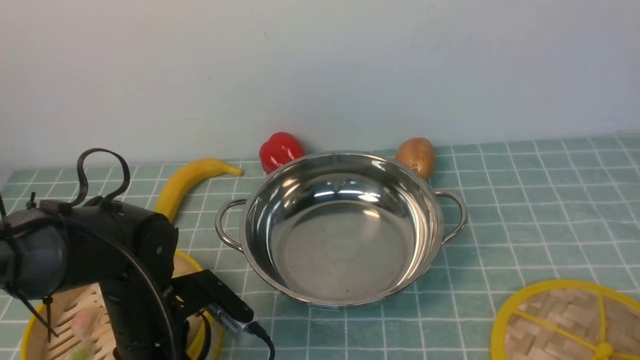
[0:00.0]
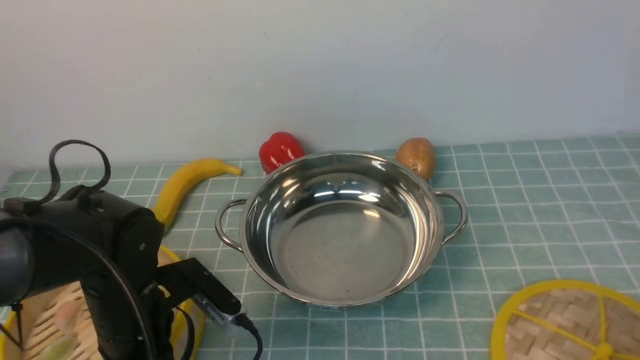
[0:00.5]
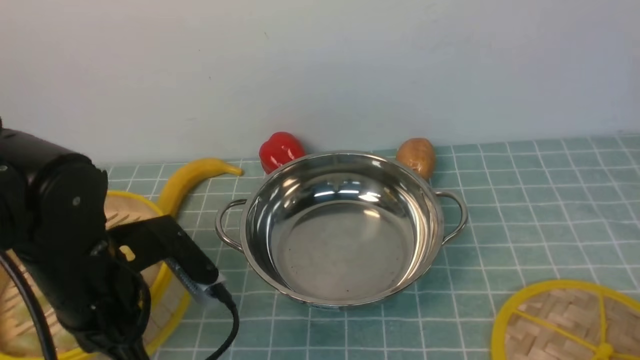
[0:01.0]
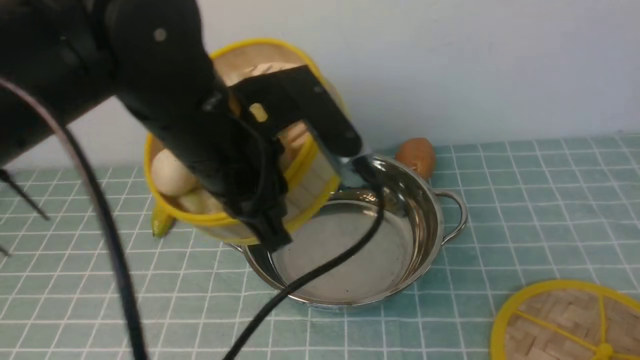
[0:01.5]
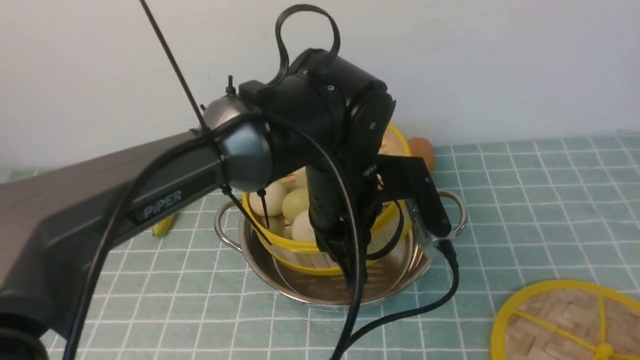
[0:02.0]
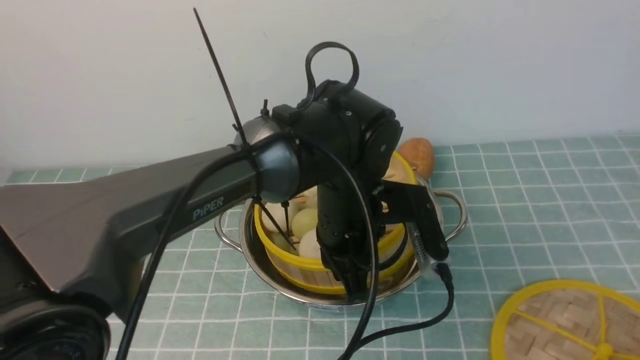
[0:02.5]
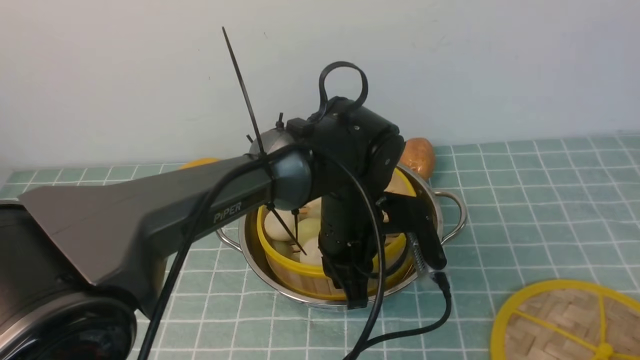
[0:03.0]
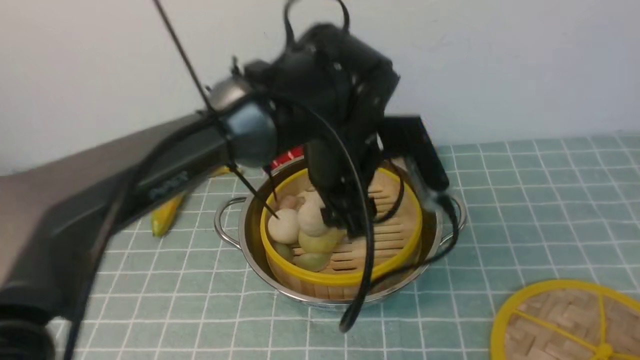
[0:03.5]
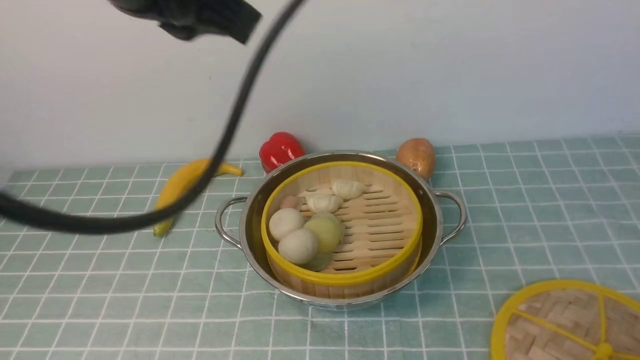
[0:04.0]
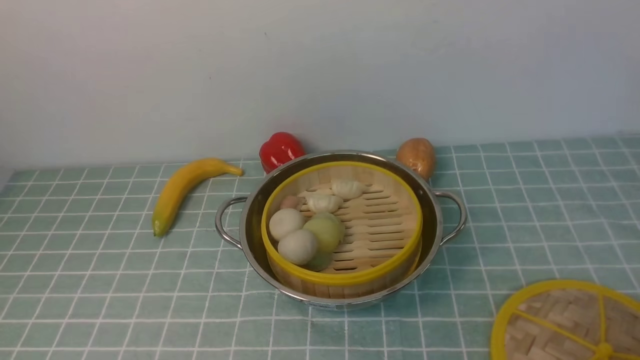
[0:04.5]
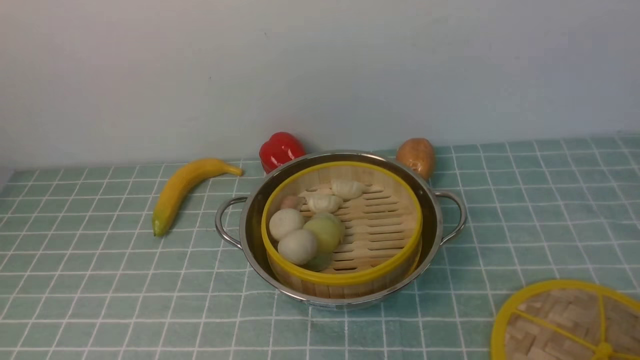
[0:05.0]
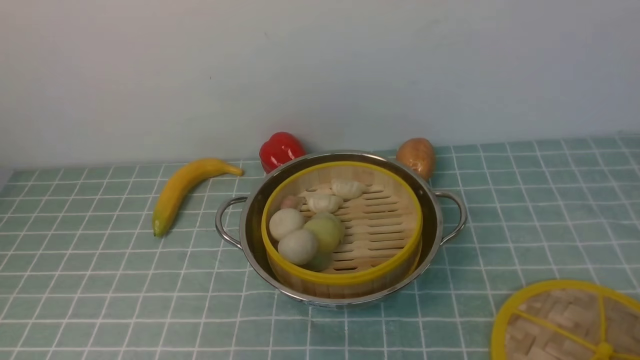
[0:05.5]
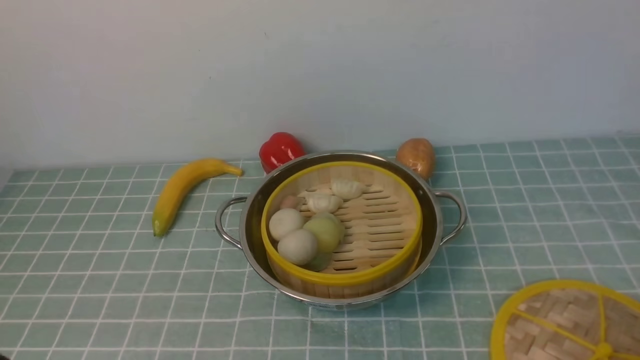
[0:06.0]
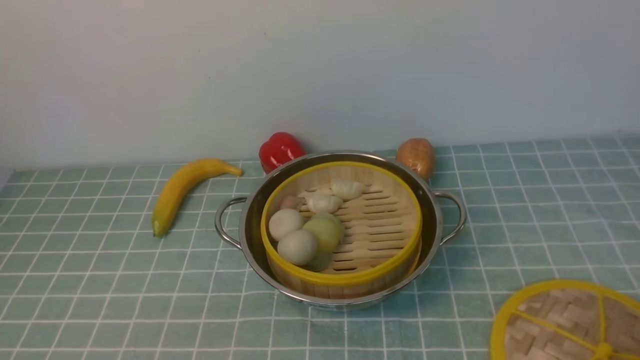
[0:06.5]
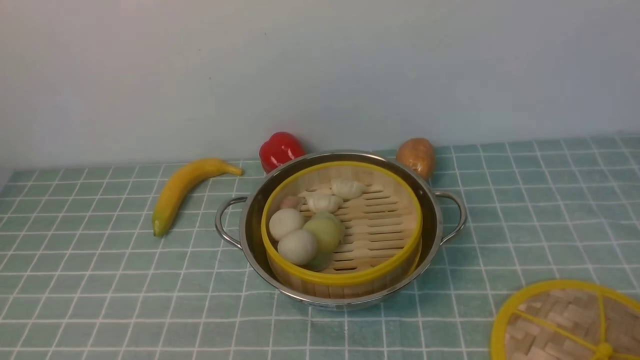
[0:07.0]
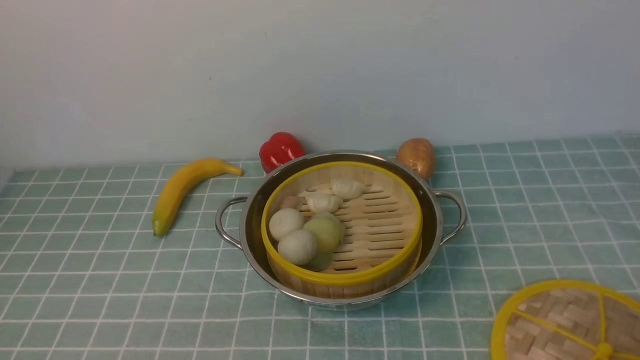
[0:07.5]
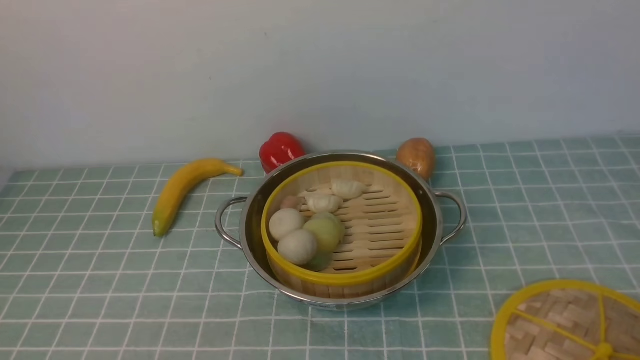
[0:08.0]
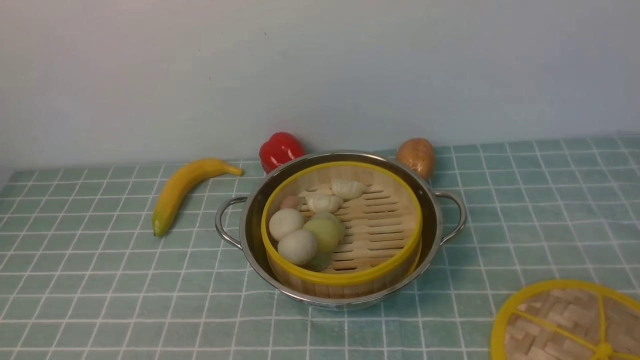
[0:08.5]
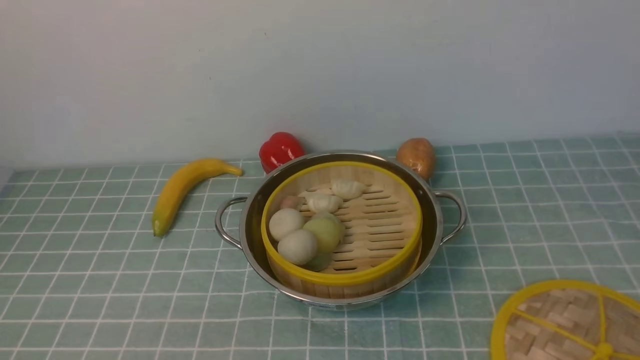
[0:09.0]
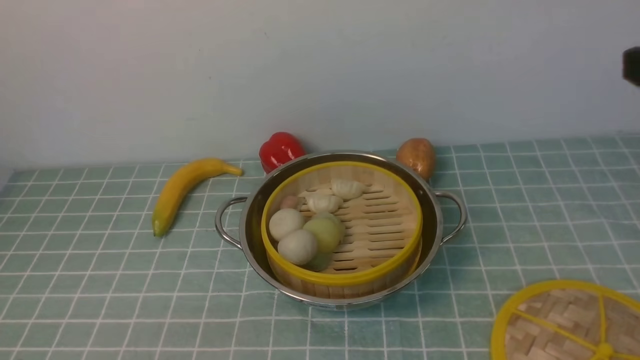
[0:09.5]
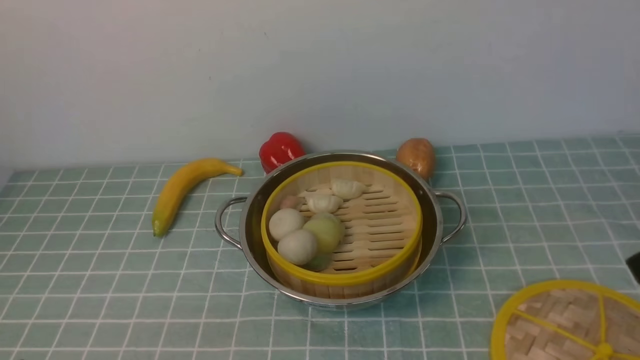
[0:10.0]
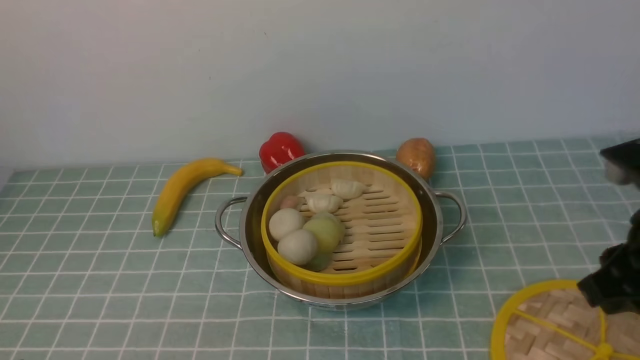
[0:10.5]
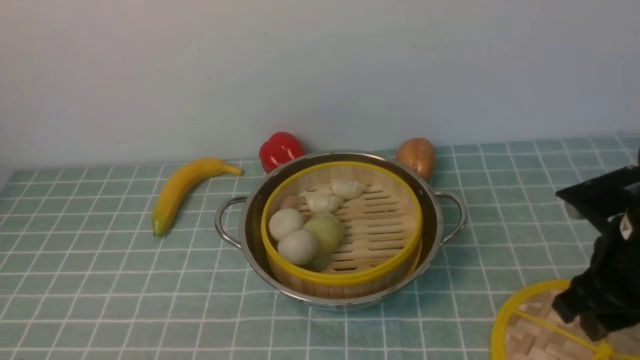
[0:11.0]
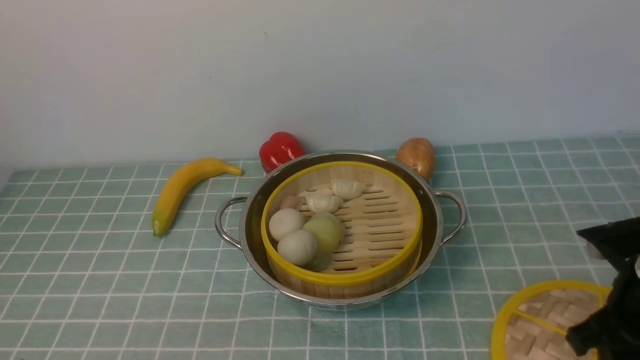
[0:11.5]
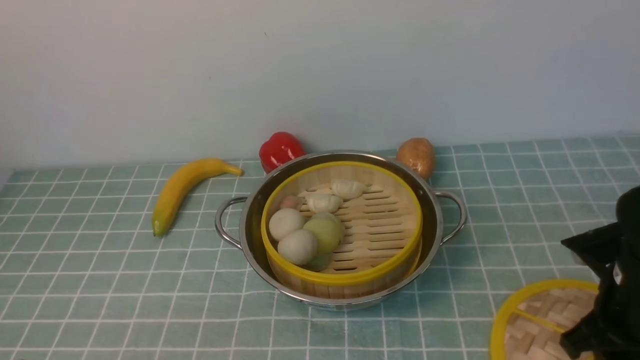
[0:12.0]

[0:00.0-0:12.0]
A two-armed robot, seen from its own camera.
Task of the whole recording: place the steamer in the pot on the blue tablecloth, and put the lid on the steamer.
Step, 0:01.5 to 0:03.5: use the left arm to put the steamer into the iron steamer pot in the middle.
0:00.0 to 0:02.0: The left gripper heads to the right and upward, covering approximately 20 cm, and closes.
0:02.0 to 0:04.0: The left gripper heads upward and to the left, covering about 25 cm, and opens, then closes again.
0:04.0 to 0:06.0: The left gripper moves downward, backward and to the left, approximately 35 cm.
0:10.0 to 0:12.0: The right gripper goes some 20 cm downward and forward.

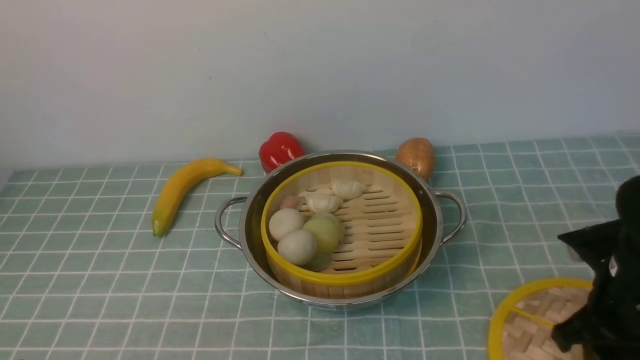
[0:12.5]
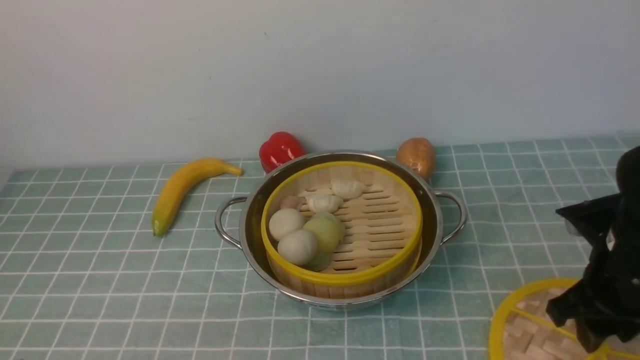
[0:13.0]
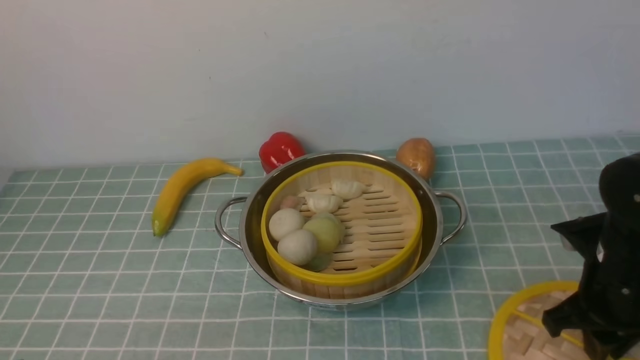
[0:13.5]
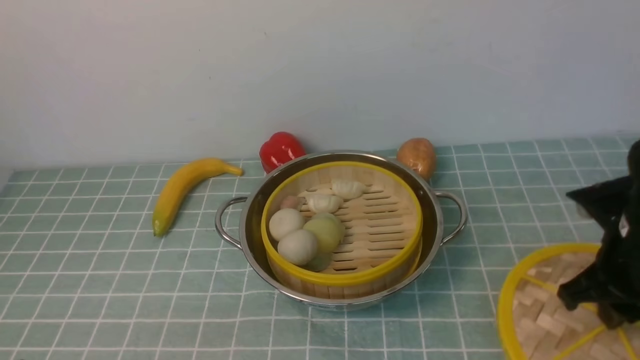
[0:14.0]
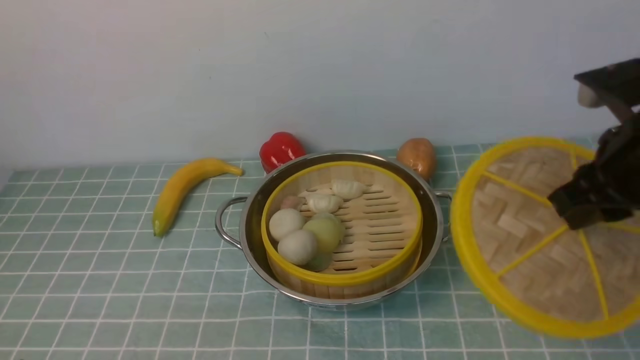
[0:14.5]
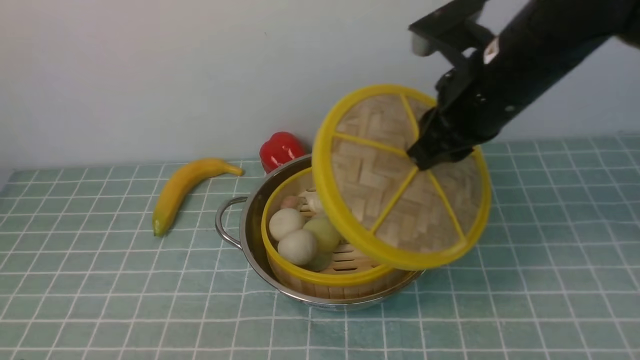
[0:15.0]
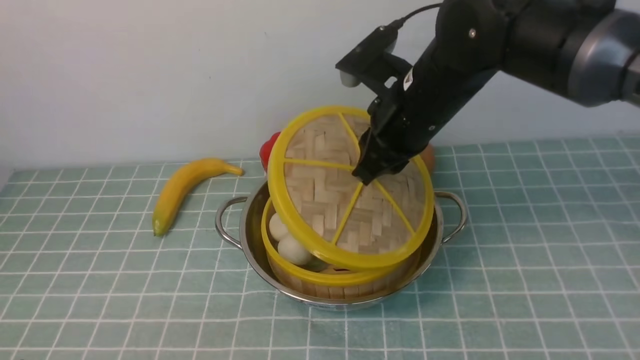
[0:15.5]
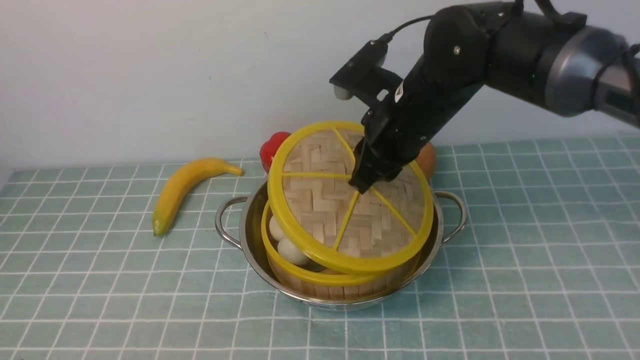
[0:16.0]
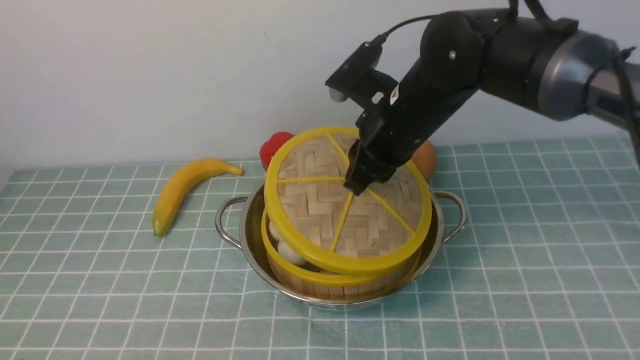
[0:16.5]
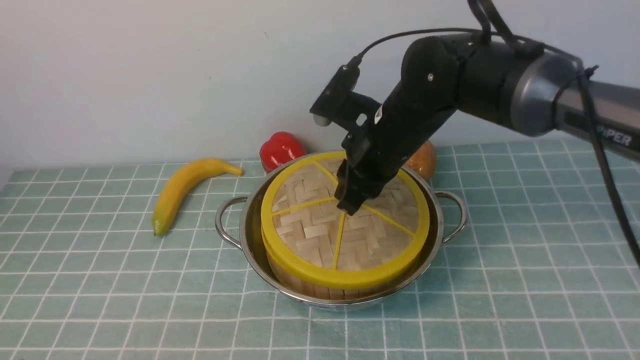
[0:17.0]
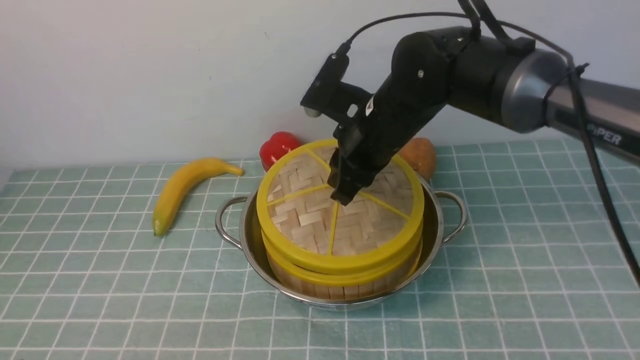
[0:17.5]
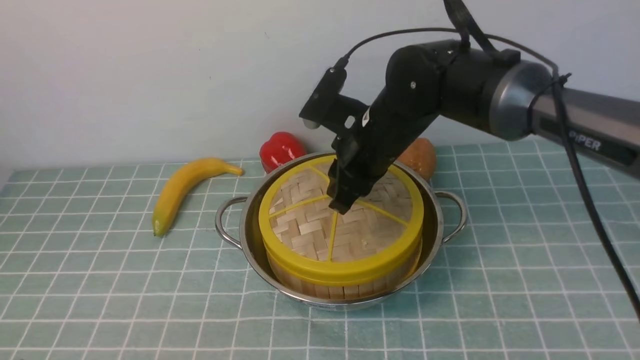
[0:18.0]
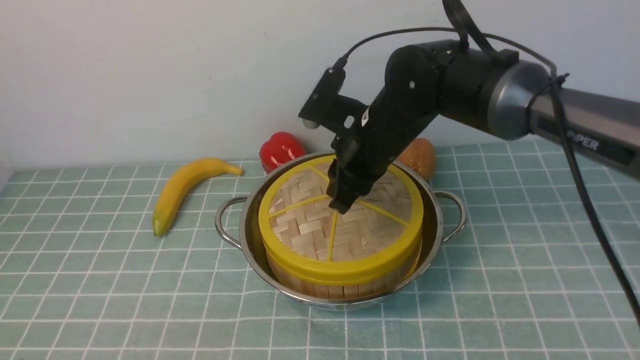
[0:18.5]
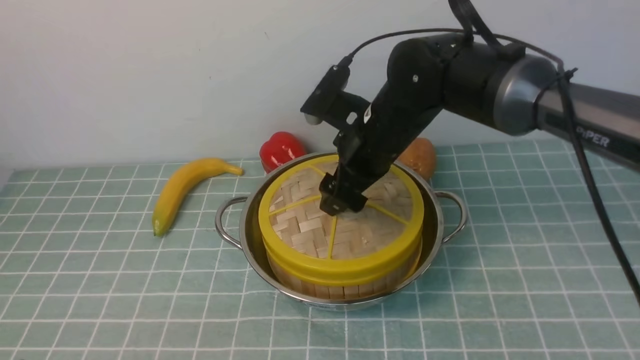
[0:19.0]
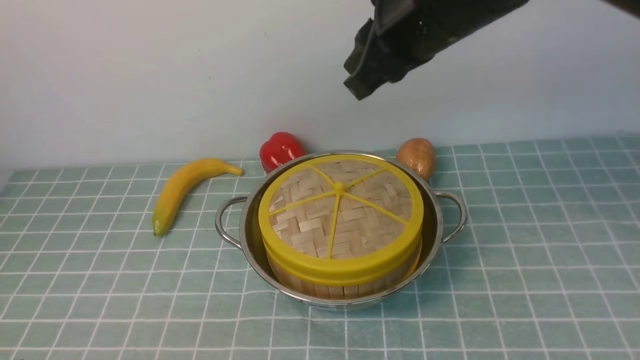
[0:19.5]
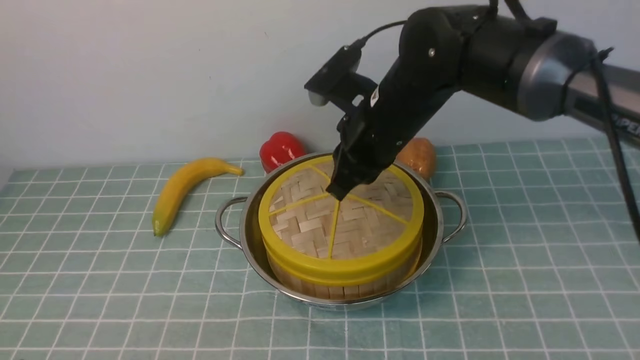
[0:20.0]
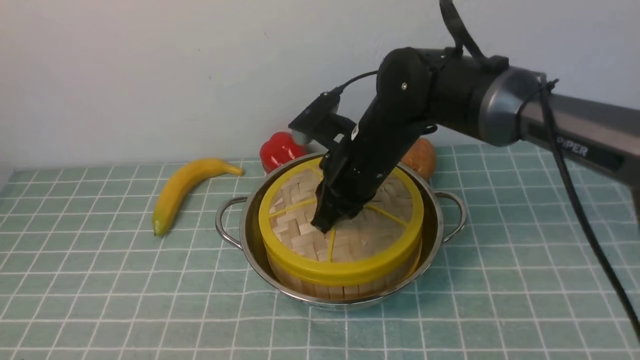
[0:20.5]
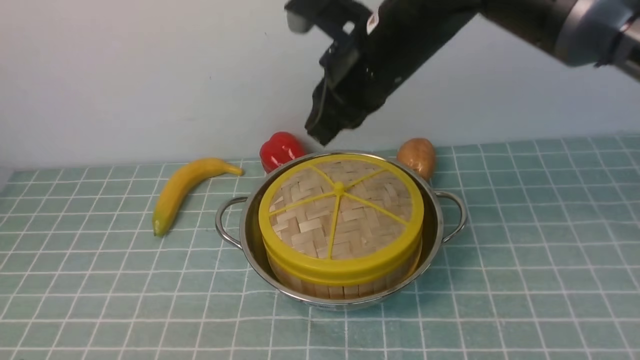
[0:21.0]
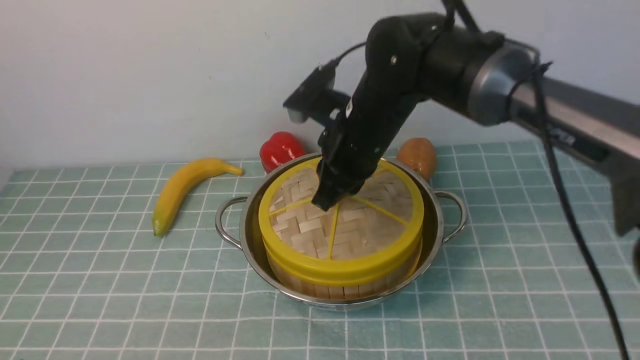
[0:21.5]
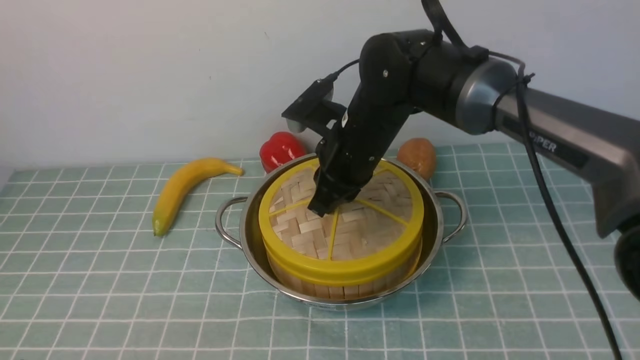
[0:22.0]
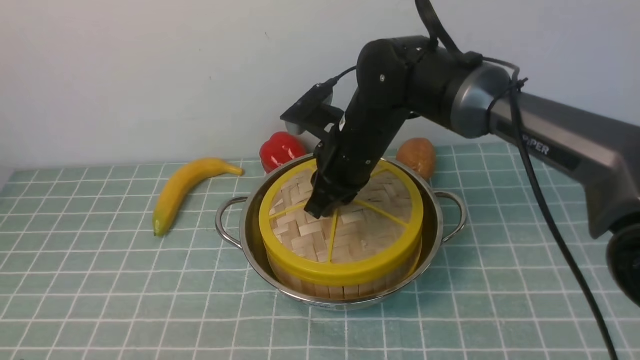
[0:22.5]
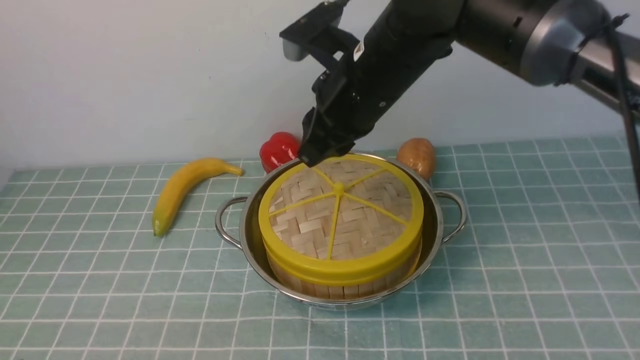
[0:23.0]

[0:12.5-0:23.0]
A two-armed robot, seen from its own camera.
Task of the whole recording: place the steamer in the pot on the blue tablecloth, and put the lid on the steamer.
Step, 0:12.5 to 0:14.5: use the right arm to lift the lid of the steamer.
0:12.5 to 0:14.5: The right gripper goes some 15 cm upward, and closes up.
0:14.5 to 0:16.5: The right gripper heads to the left and forward, covering about 20 cm.
0:16.5 to 0:19.0: The right gripper opens up.
0:19.0 to 0:21.0: The right gripper goes up and down, approximately 15 cm each way, reversing 2 times, and closes its fingers.
0:21.0 to 0:23.0: The right gripper moves about 10 cm downward and comes back, and opens up.
